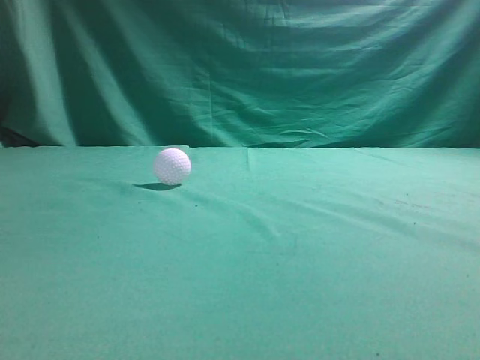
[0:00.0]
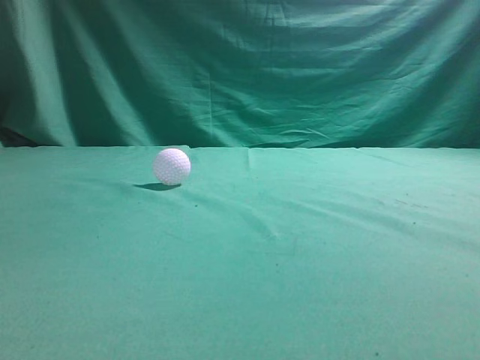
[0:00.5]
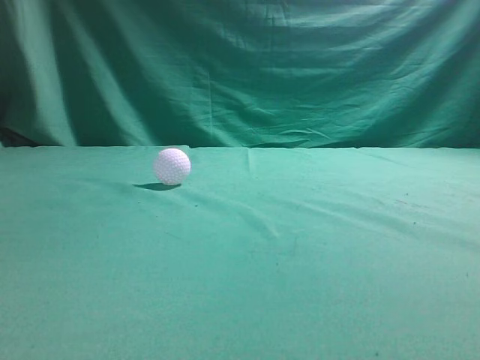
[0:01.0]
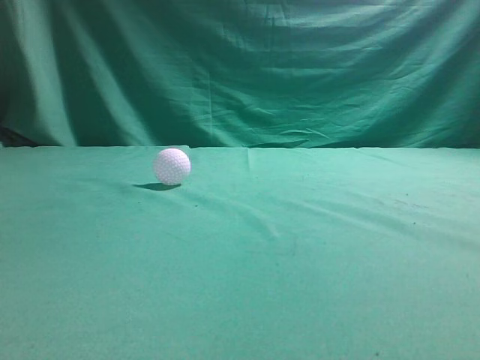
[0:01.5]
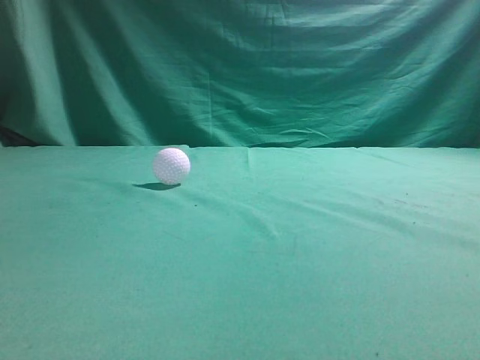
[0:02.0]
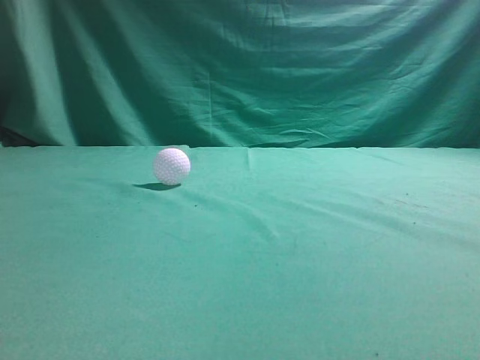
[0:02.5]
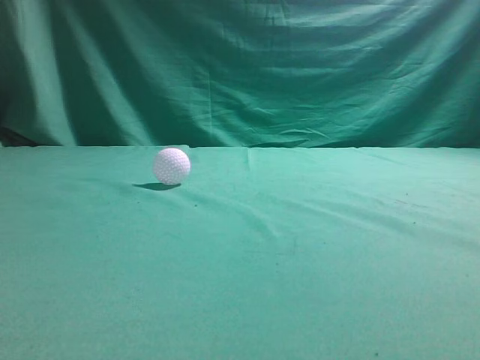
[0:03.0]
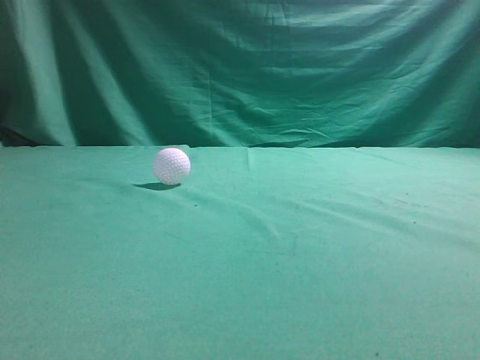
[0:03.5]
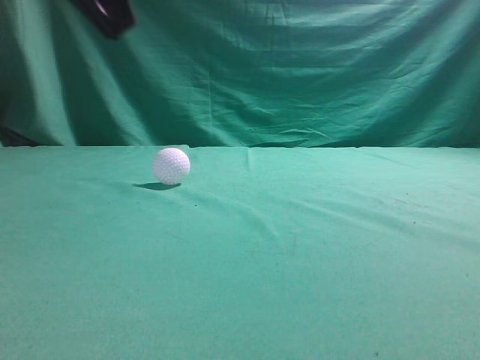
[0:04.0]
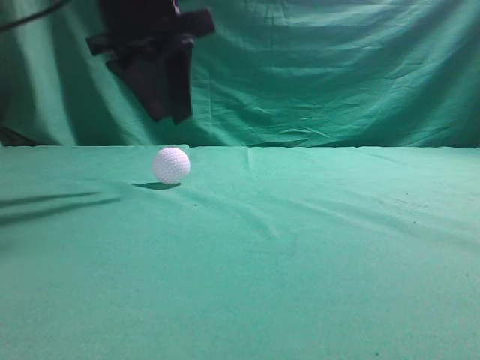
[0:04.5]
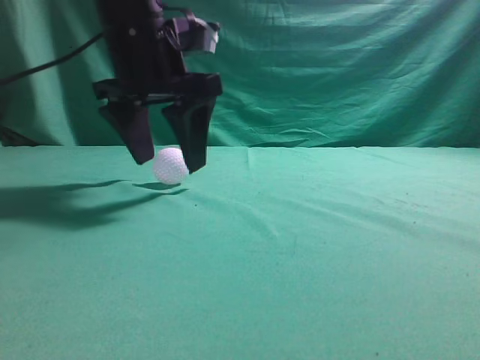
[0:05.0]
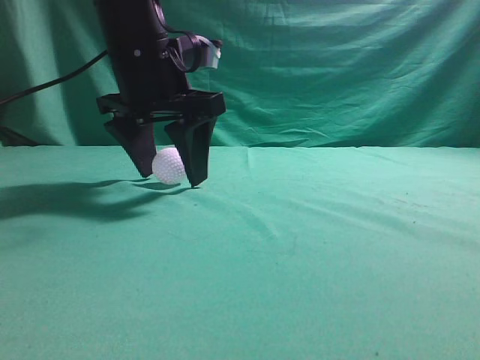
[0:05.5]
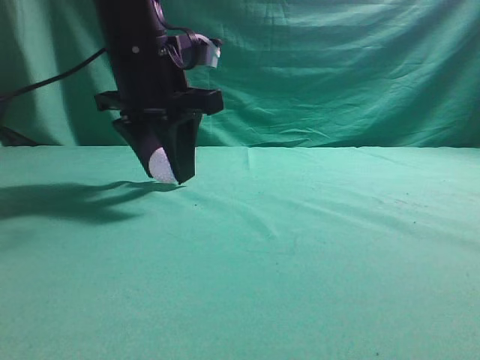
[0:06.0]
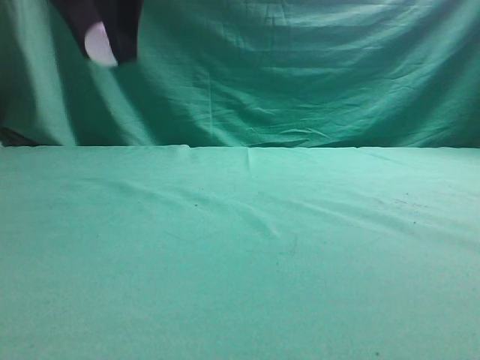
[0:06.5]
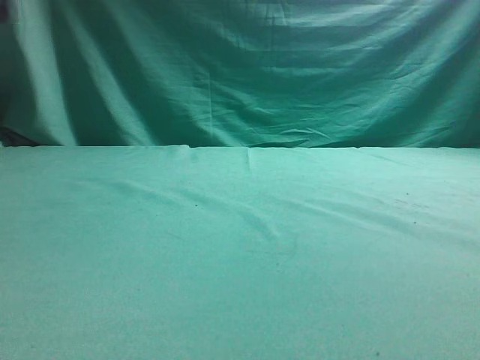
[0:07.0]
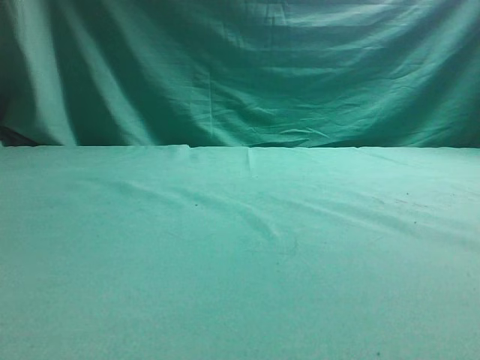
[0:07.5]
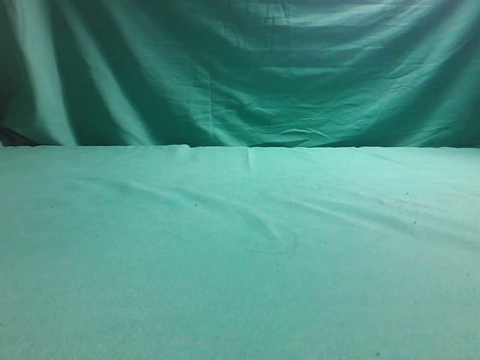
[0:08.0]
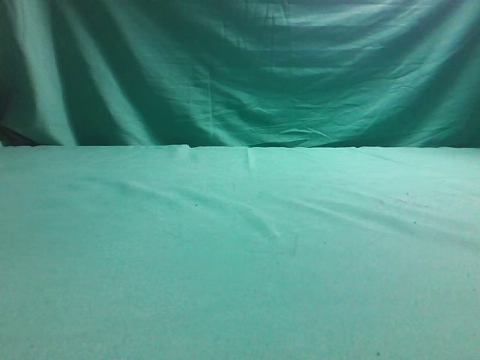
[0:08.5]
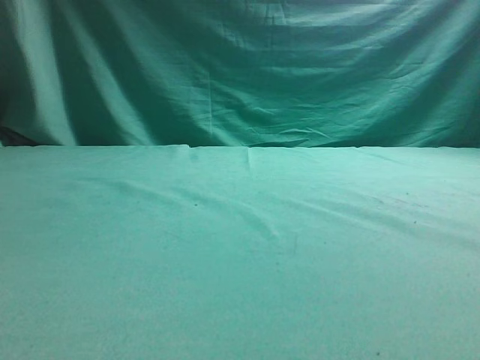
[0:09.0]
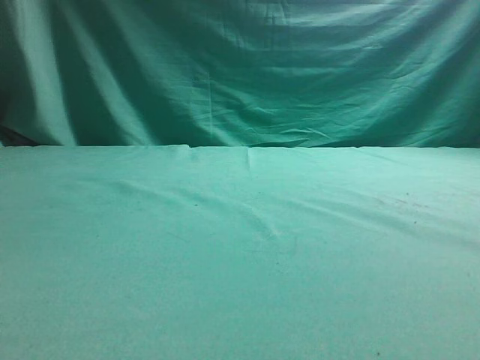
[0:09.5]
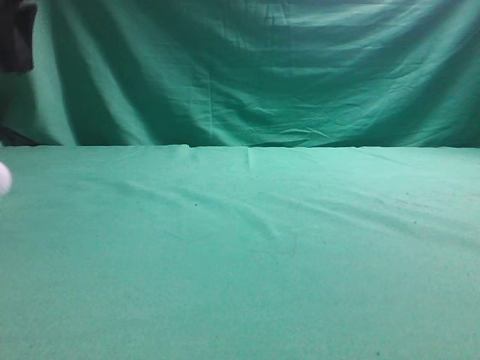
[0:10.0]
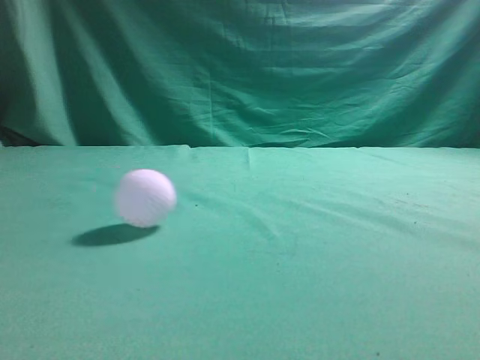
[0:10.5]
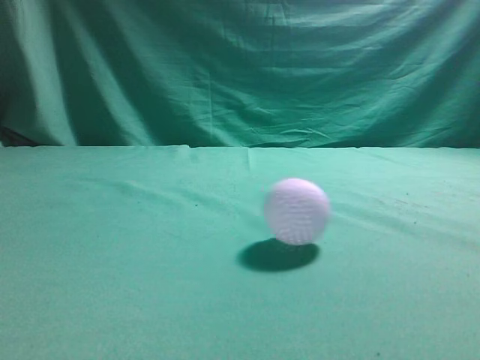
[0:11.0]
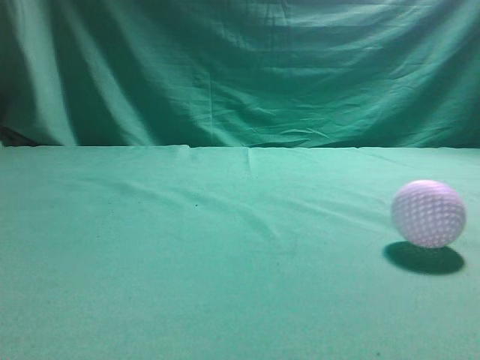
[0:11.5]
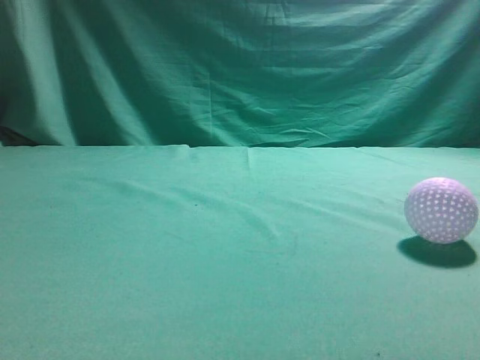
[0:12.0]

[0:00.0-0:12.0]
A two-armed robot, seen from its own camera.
Task of the whole recording: pick up the ball and place it on the plate, then pick up the ball from the plate and put it in the center of the table.
Step, 0:00.0 to 0:06.0: Grab the spherical object with your left arm.
Step, 0:06.5 to 0:09.0: Place the sphere on the white object.
0:02.0 to 0:04.0: The left gripper is displaced forward and to the right by some 25 cm.
0:04.0 to 0:06.0: The left gripper goes approximately 20 cm forward, downward and to the right, and opens its fingers.
0:06.0 to 0:08.0: The right gripper travels upward by roughly 5 cm, while the left gripper goes roughly 25 cm to the left.
0:08.0 to 0:10.0: The left gripper shifts roughly 10 cm to the right and forward, and opens, then closes again.
0:10.0 to 0:12.0: The right gripper heads to the left and forward, covering some 10 cm. The left gripper moves backward, some 30 cm.

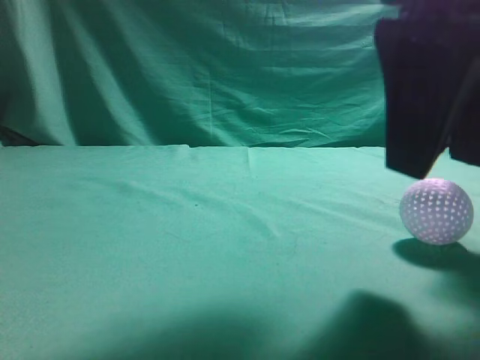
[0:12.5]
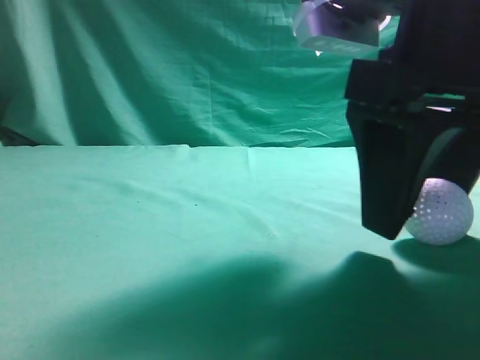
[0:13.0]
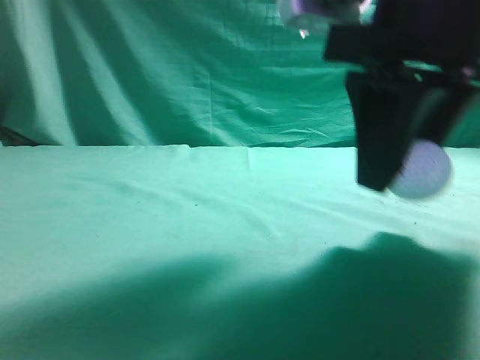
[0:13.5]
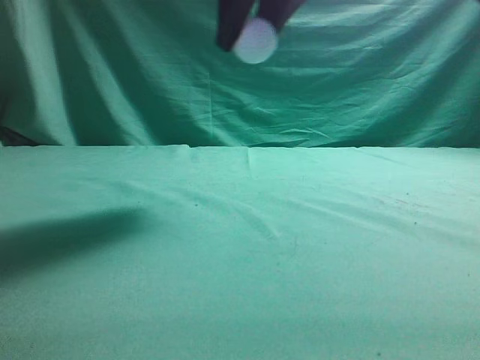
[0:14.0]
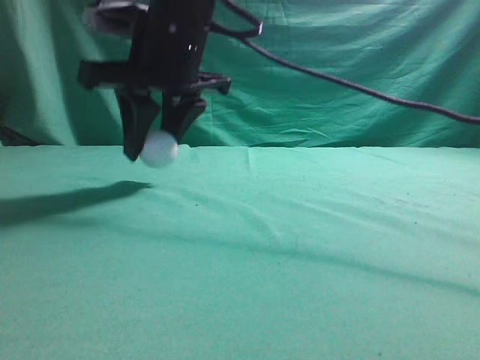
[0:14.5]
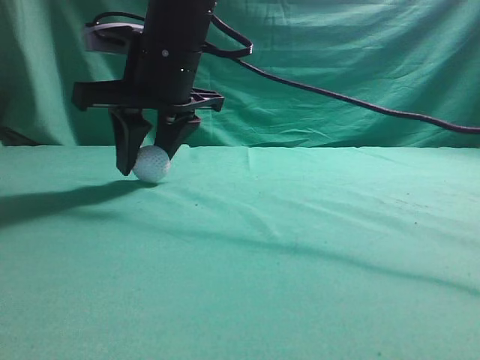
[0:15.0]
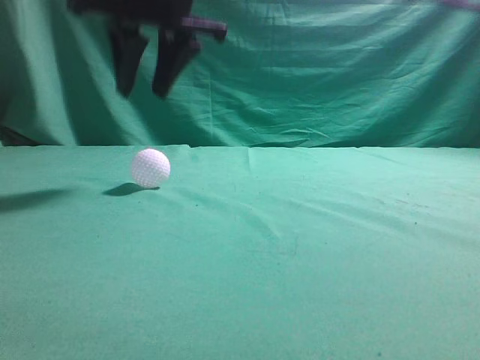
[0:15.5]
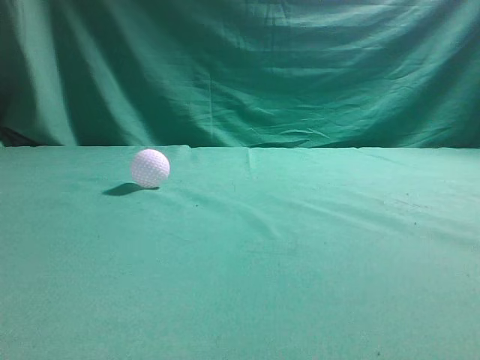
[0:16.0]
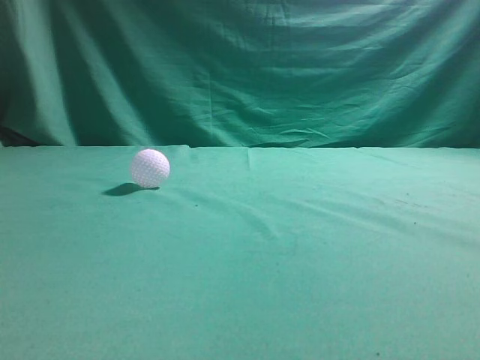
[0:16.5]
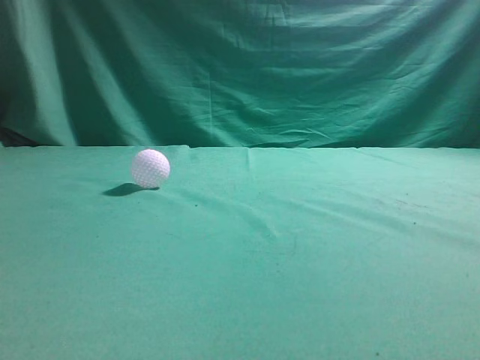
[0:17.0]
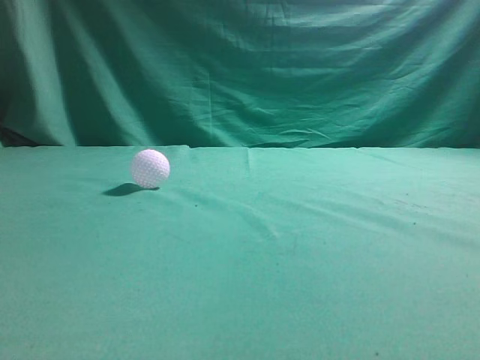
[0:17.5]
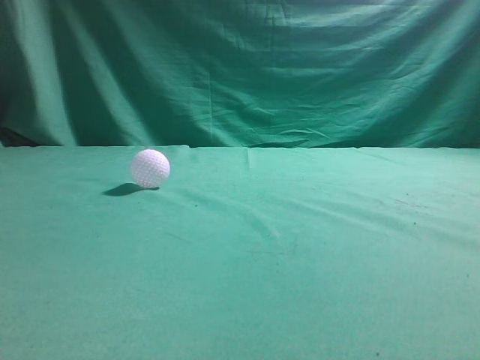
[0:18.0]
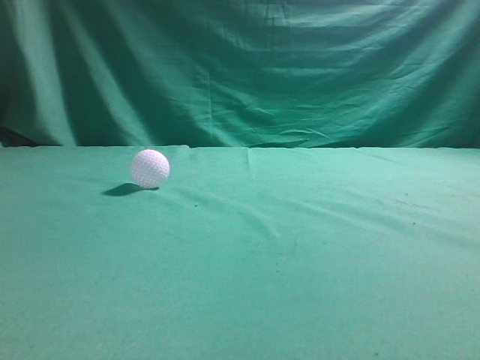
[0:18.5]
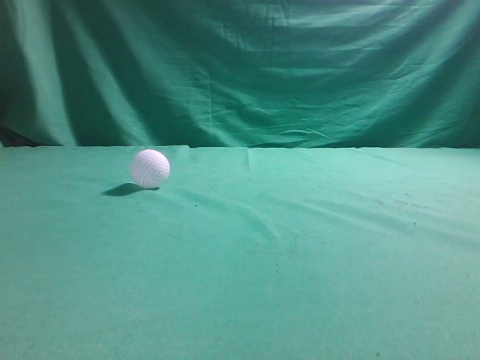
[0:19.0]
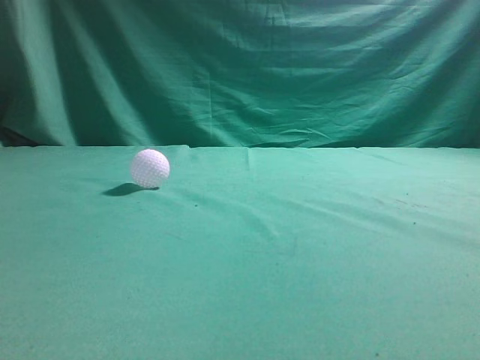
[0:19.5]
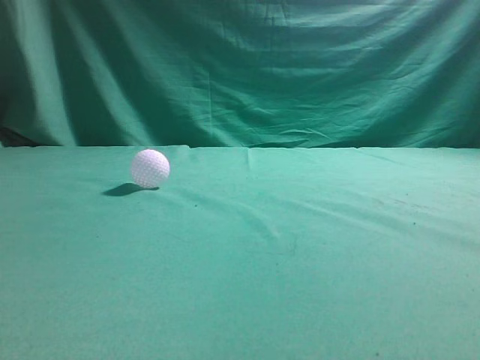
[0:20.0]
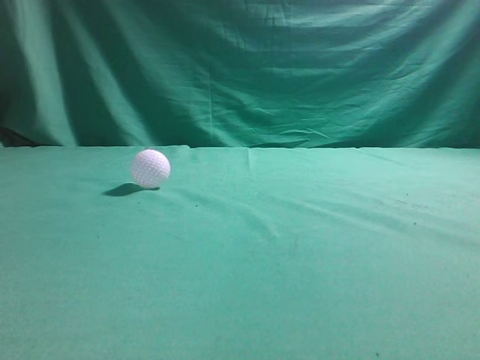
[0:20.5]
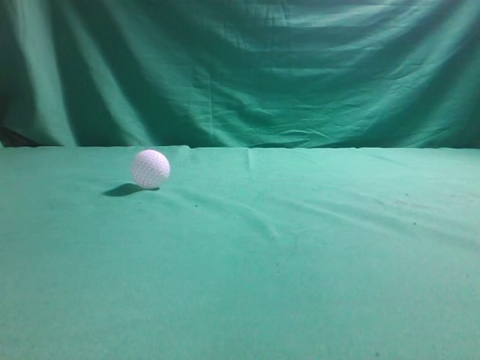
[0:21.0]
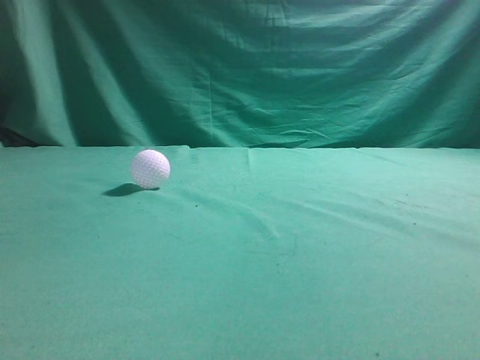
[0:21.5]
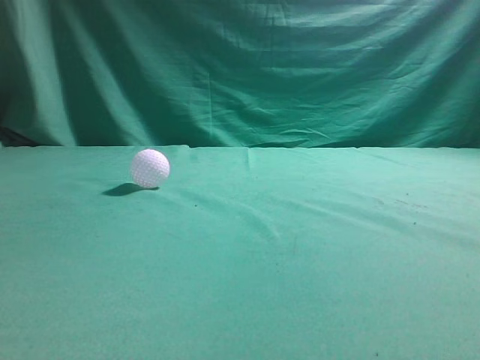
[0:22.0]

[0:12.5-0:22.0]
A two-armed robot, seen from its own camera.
Task of the whole recording: pick up the ball and place it on the plate, then pick up the ball from the plate and put it in the center of the table.
Step, 0:14.0 to 0:15.0: Put the picked-up object on the table.
0:12.5 to 0:14.5: The right gripper heads to the left and forward, covering about 25 cm, and closes.
0:14.5 to 0:16.5: The right gripper travels upward, to the right and backward by about 35 cm, and closes its fingers, while the left gripper heads backward, covering some 5 cm.
